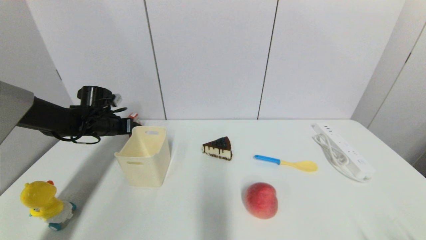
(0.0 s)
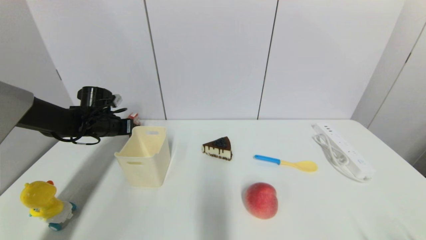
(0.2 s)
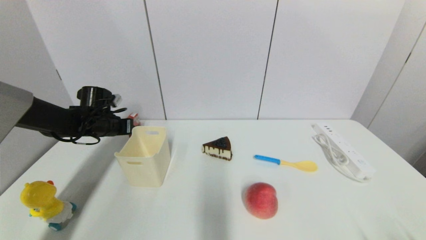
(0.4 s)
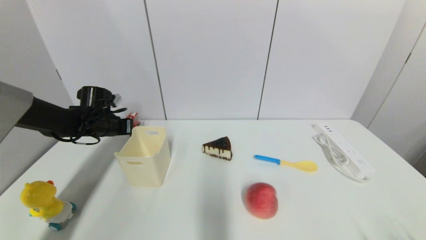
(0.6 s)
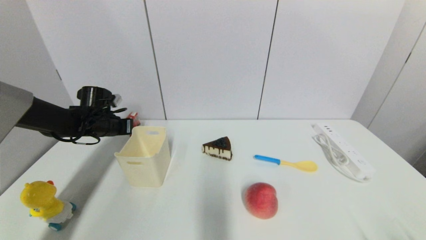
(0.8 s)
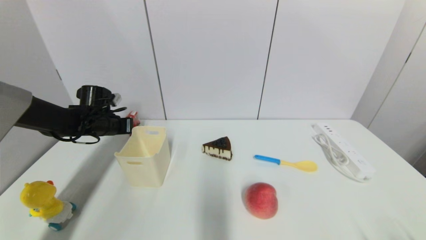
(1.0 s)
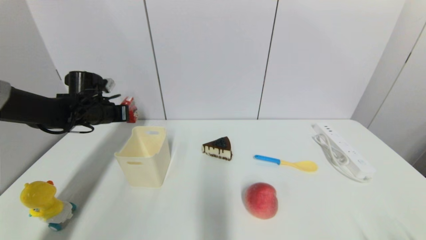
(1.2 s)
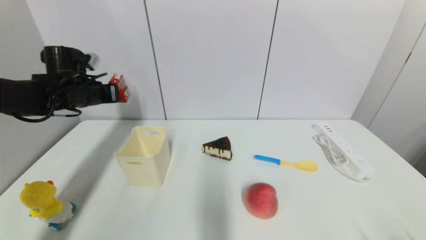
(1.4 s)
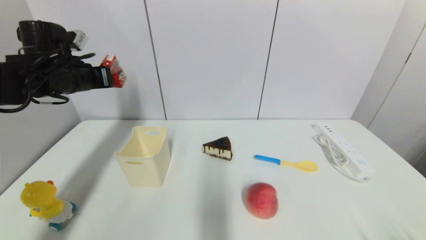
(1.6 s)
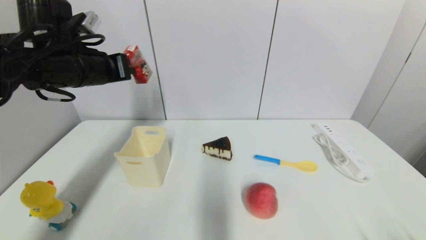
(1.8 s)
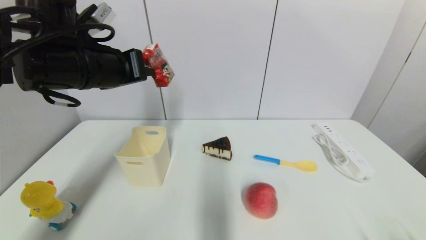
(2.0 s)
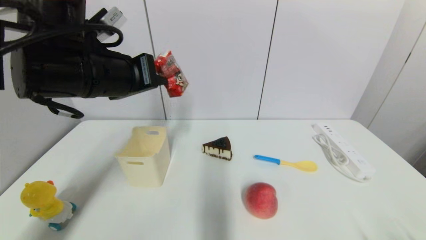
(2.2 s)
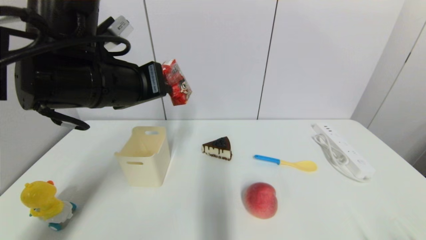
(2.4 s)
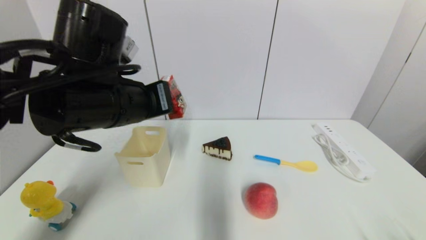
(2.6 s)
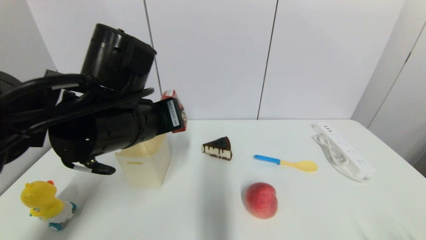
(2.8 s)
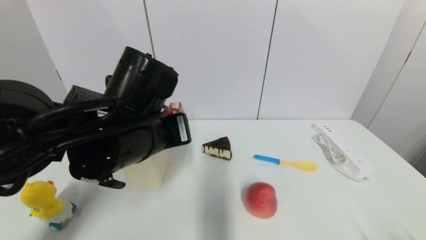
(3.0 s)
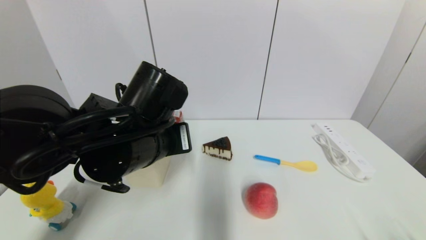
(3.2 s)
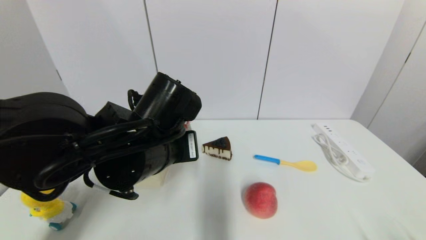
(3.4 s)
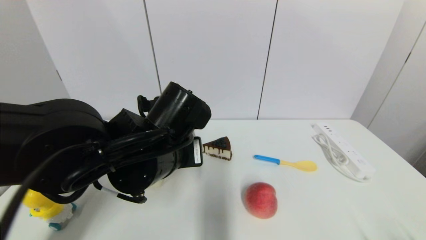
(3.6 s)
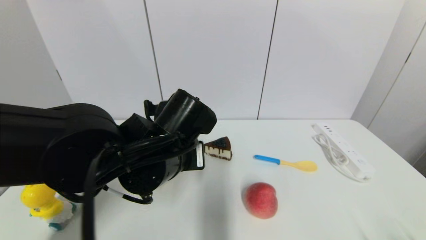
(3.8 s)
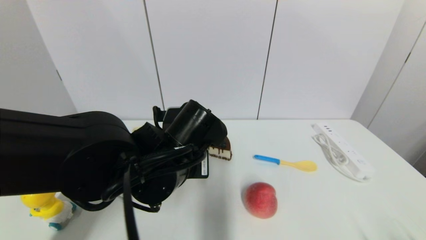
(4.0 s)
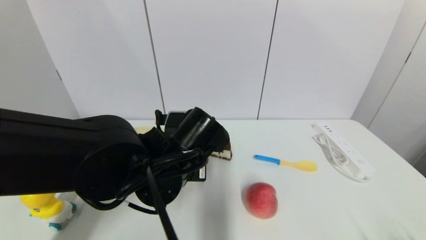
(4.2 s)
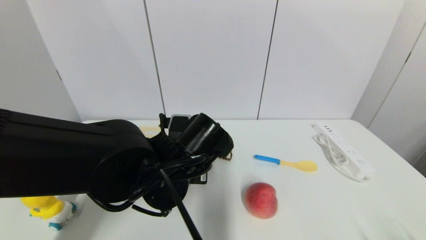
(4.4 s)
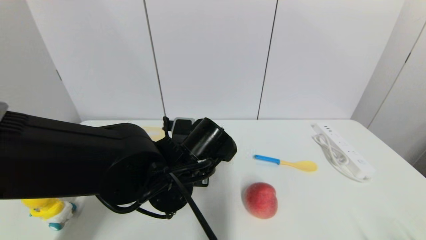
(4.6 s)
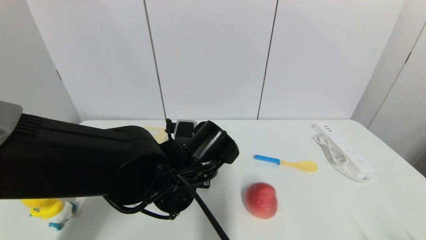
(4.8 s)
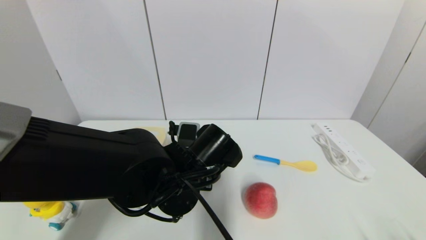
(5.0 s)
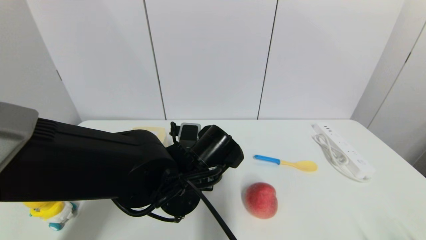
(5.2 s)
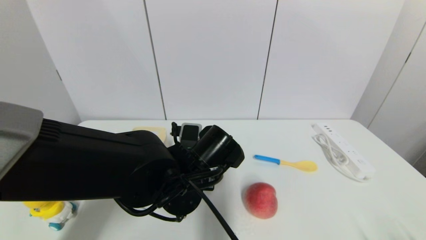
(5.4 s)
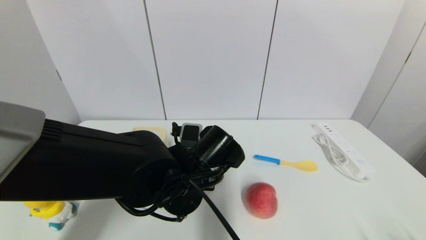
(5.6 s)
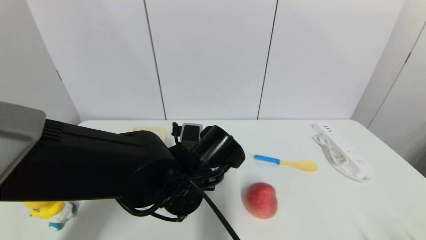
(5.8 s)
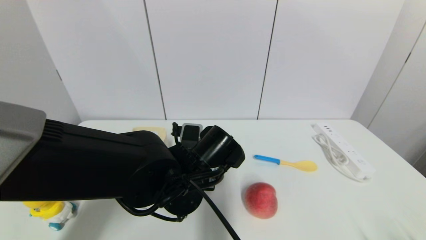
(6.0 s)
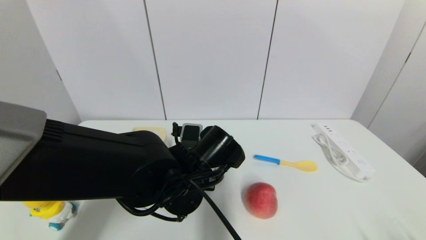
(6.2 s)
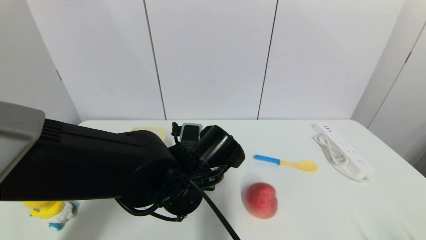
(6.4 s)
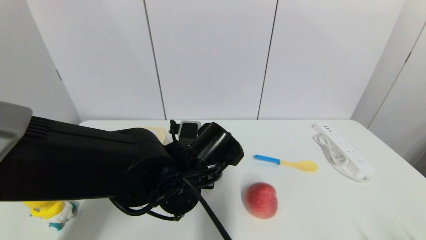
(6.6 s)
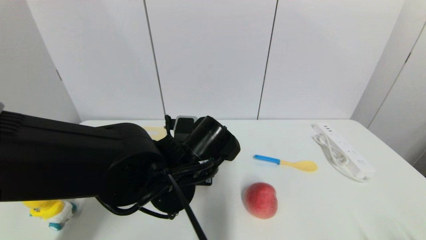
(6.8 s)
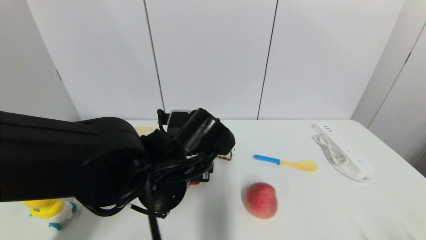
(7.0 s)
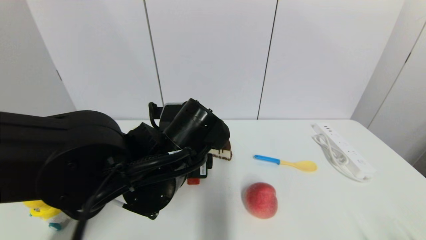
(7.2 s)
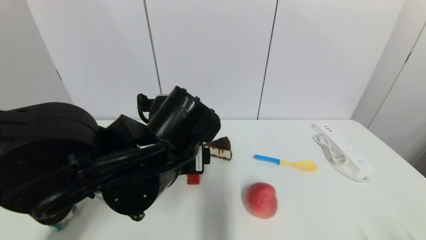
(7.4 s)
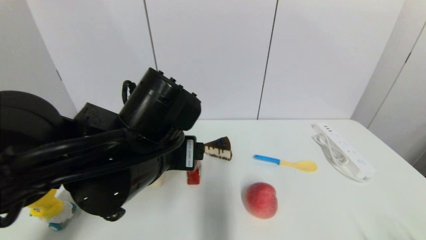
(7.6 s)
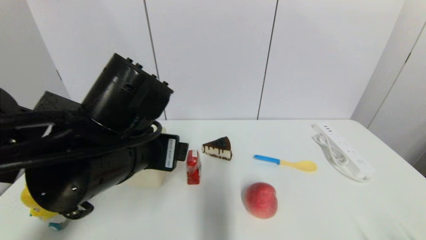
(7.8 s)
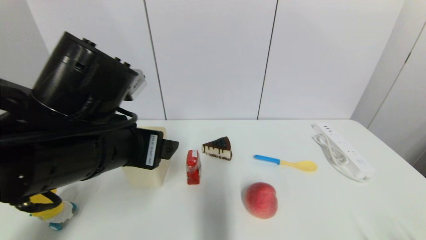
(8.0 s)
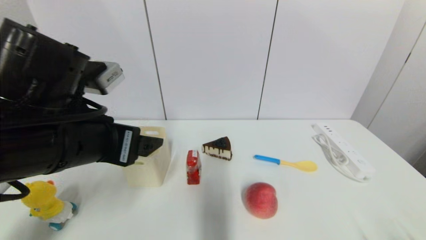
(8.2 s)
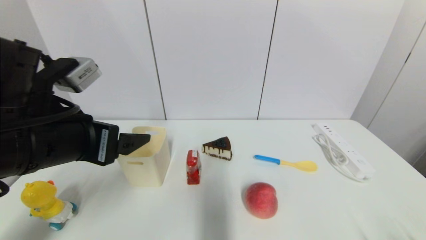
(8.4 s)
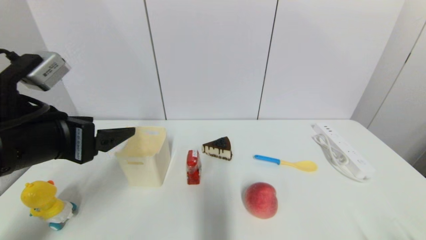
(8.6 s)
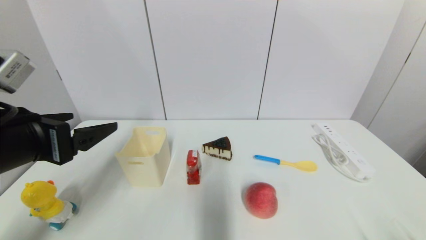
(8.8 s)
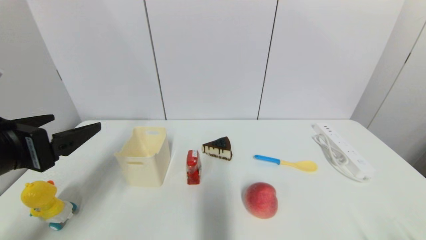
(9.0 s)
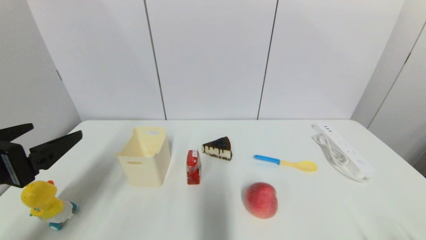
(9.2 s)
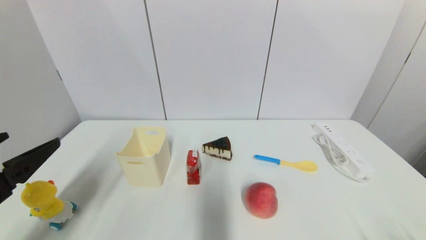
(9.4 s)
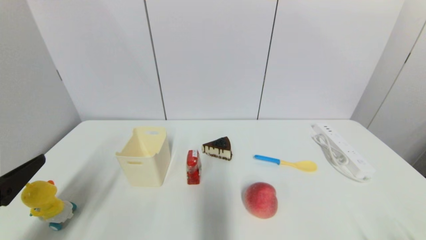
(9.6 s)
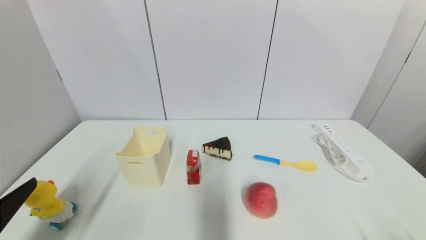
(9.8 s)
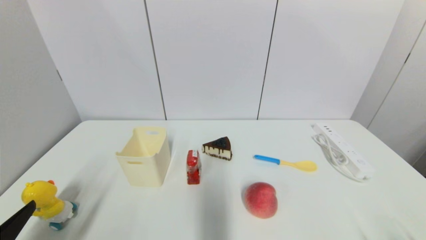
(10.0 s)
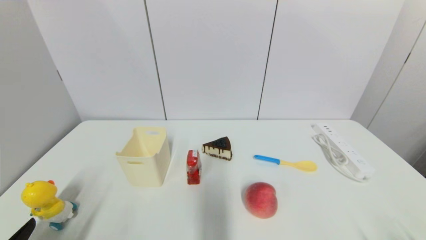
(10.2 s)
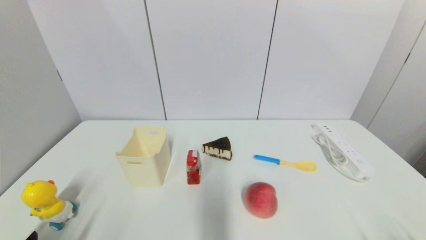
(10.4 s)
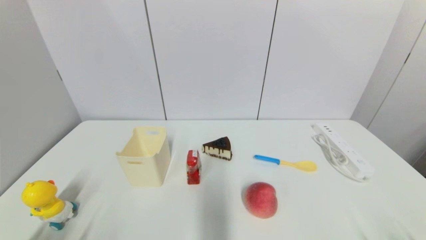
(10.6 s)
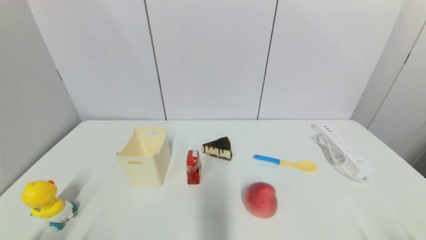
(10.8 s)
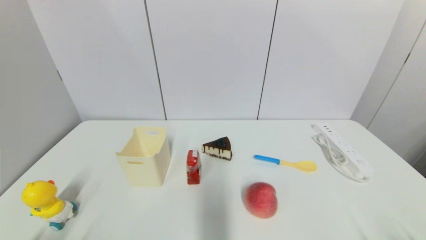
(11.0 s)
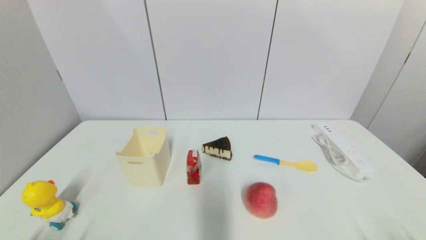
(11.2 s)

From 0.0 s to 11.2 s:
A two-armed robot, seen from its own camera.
Step, from 0.8 s to 5.8 s: Place the wangzai milk on the table with left gripper.
From 0.0 s to 1.6 s: The left gripper is displaced upward and backward by about 15 cm, and closes up.
From 1.6 s to 3.2 s: The left gripper heads to the right and backward, covering approximately 25 cm.
From 3.2 s to 4.8 s: The left gripper travels downward by approximately 5 cm.
From 4.8 s to 6.4 s: The left gripper opens up.
From 6.4 s to 8.0 s: The left gripper heads upward, to the left and backward, covering about 15 cm.
From 8.0 s to 9.6 s: The left gripper heads to the left and backward, covering approximately 20 cm.
From 9.6 s to 11.2 s: The left gripper heads downward and backward, covering about 15 cm.

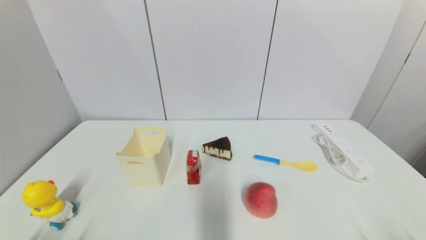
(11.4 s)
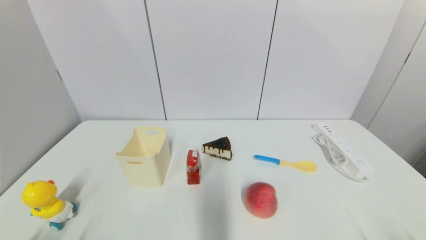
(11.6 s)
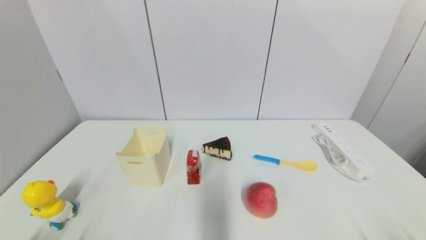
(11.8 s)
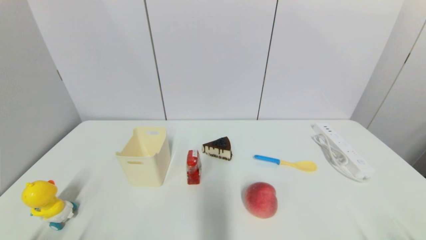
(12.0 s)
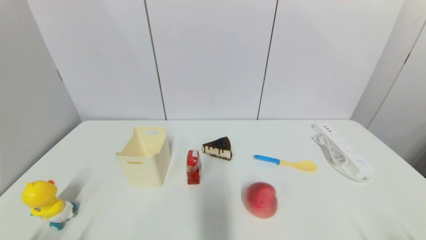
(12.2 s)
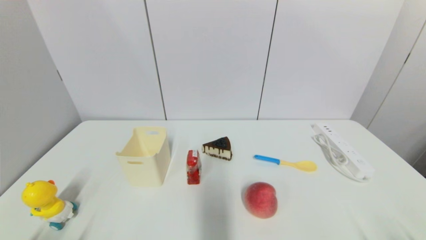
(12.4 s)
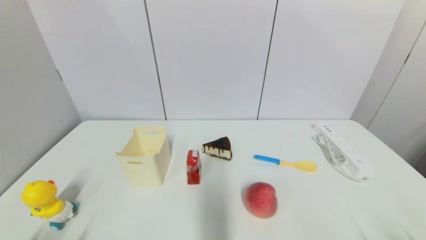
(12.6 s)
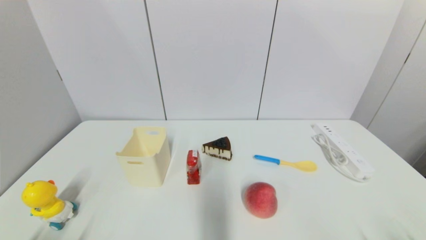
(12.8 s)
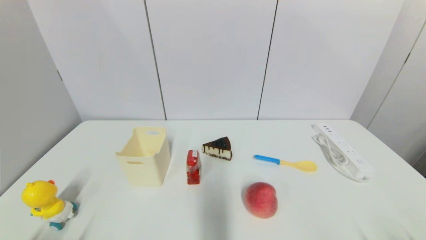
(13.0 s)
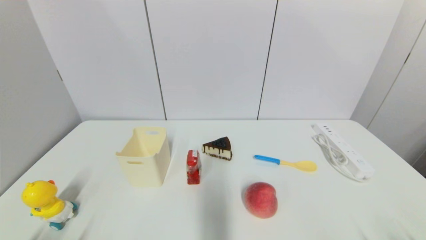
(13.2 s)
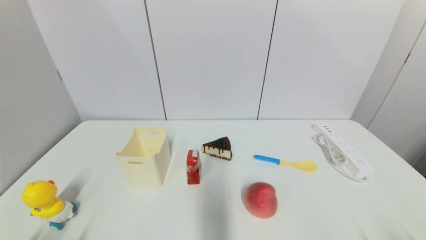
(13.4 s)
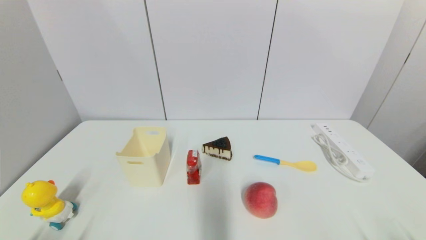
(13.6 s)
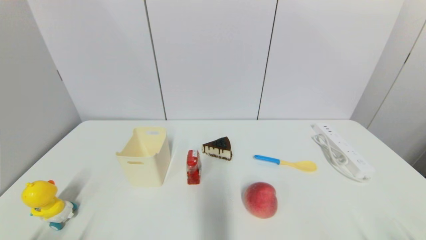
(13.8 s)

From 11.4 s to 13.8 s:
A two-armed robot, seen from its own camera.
From 11.4 s to 13.8 s: Both grippers stay about where they are.

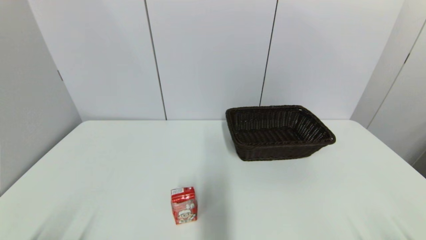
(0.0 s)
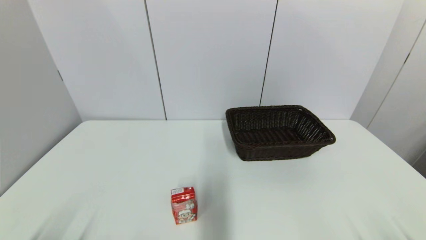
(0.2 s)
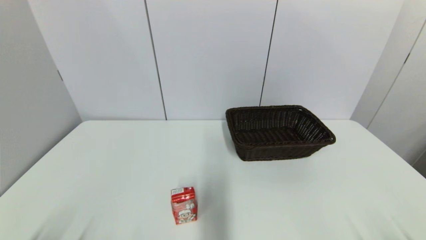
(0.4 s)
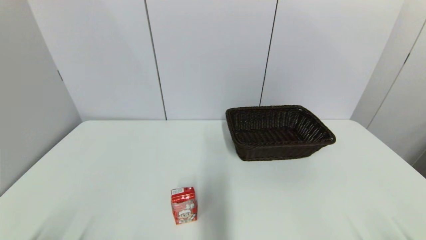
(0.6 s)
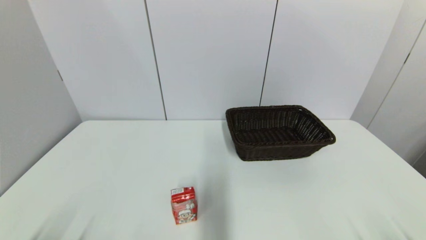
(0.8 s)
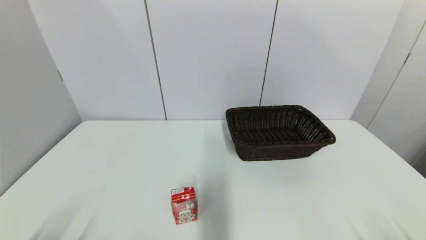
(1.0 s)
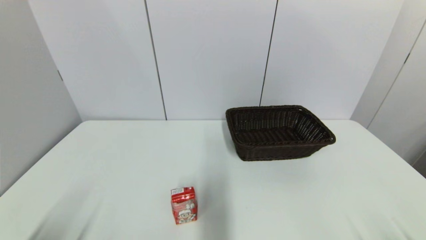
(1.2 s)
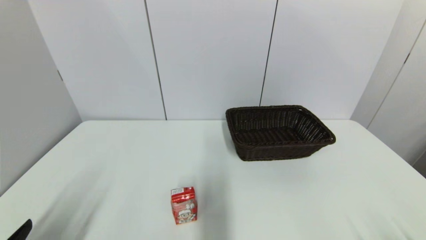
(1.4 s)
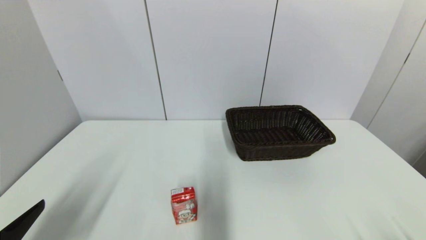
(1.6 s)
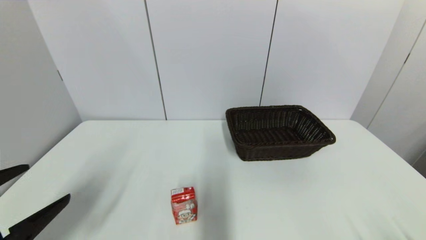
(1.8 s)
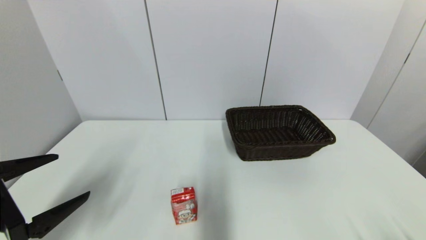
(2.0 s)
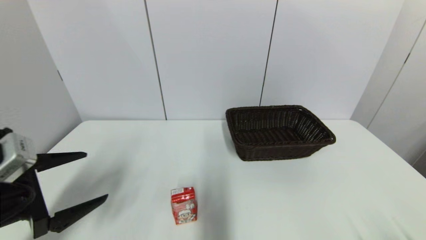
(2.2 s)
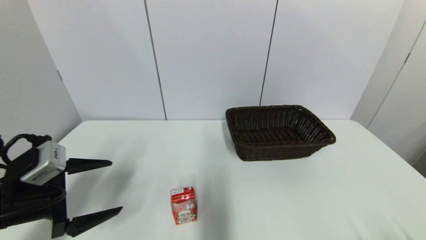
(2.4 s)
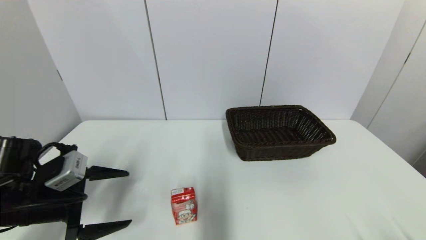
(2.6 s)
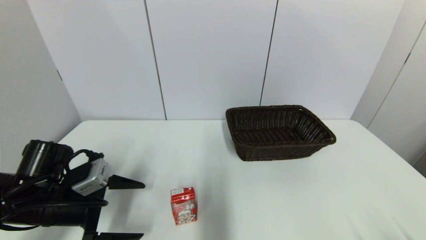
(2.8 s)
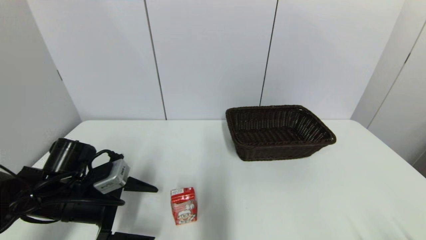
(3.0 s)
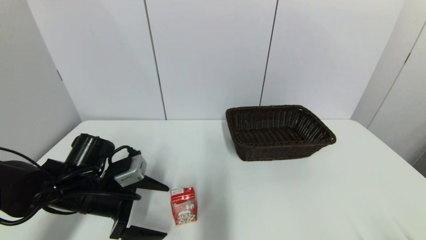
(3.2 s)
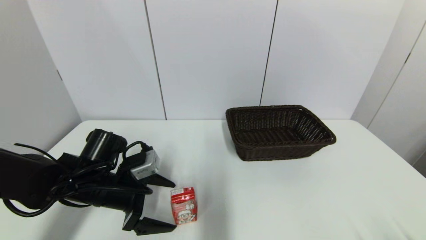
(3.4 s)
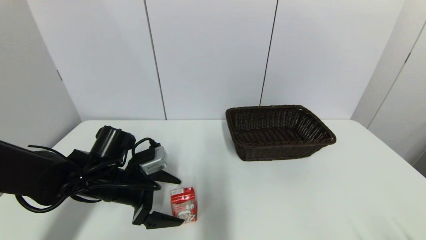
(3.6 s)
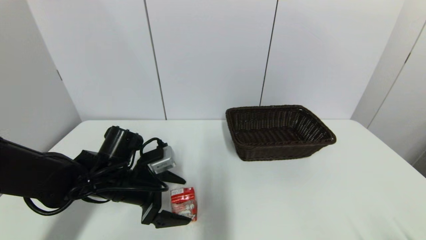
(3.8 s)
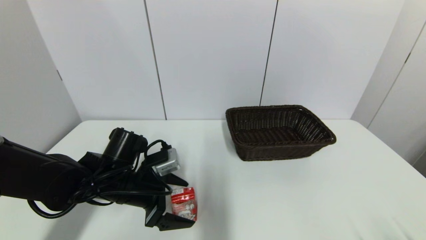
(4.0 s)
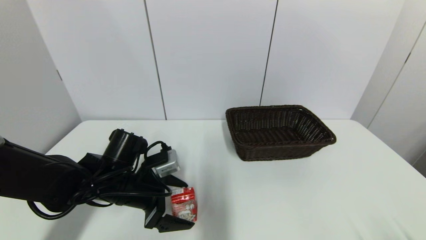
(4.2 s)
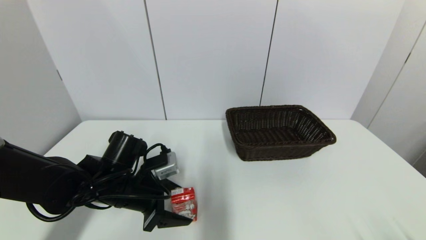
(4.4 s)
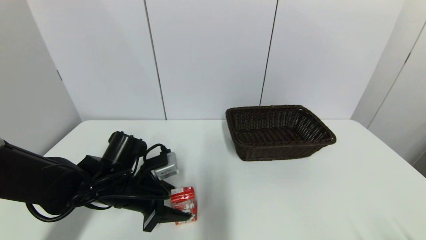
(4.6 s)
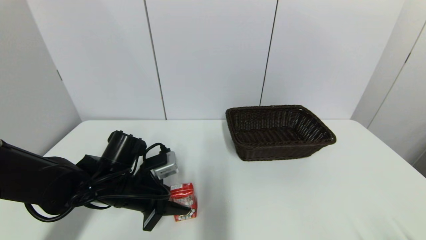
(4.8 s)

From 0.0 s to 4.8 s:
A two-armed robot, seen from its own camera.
Step, from 1.4 s to 4.8 s: Grasp the wangzai milk with left gripper.
From 0.0 s to 1.6 s: The left gripper goes approximately 10 cm upward and forward.
From 1.6 s to 3.2 s: The left gripper shifts some 20 cm forward, to the right and downward.
From 3.2 s to 4.8 s: The left gripper closes its fingers.
